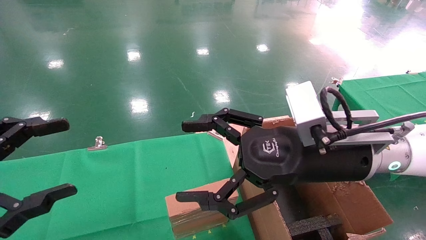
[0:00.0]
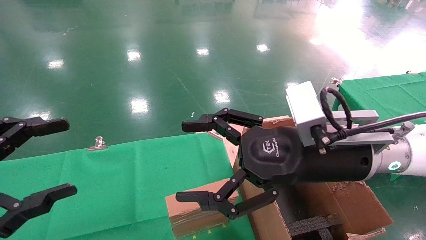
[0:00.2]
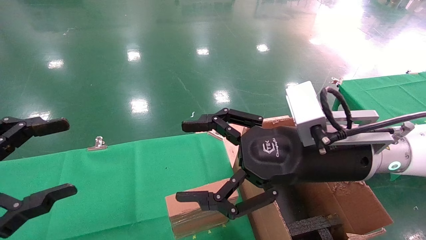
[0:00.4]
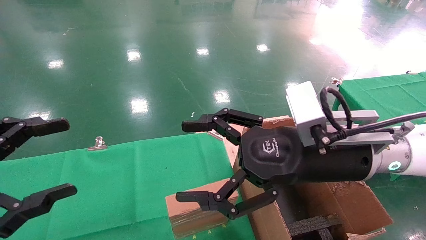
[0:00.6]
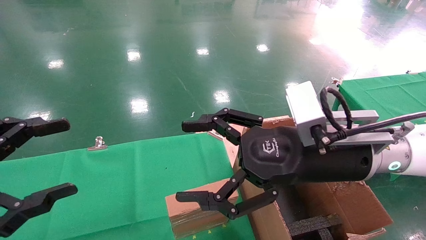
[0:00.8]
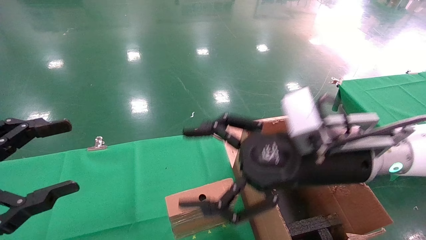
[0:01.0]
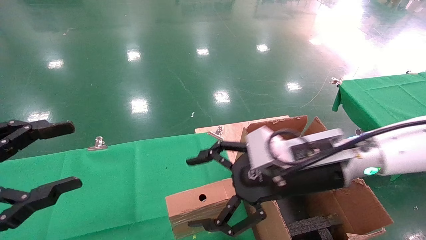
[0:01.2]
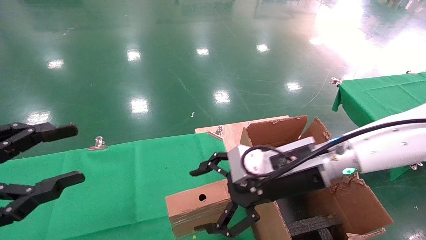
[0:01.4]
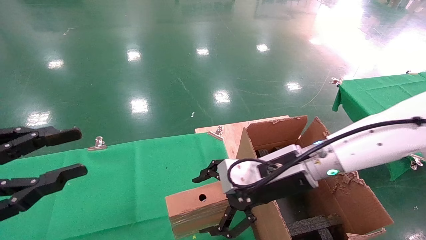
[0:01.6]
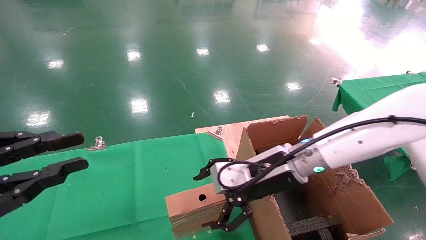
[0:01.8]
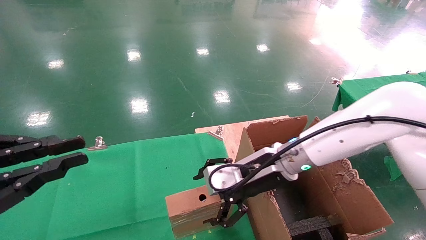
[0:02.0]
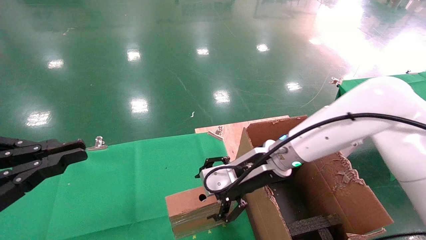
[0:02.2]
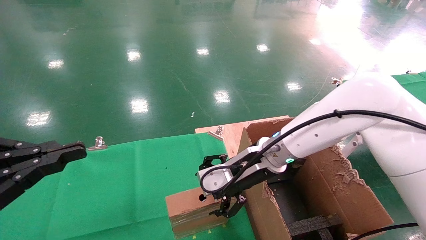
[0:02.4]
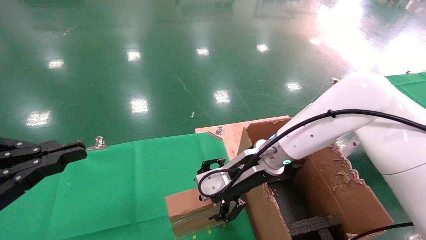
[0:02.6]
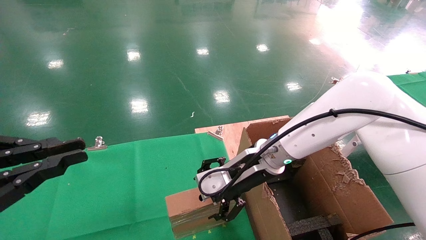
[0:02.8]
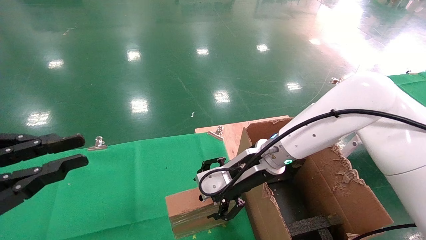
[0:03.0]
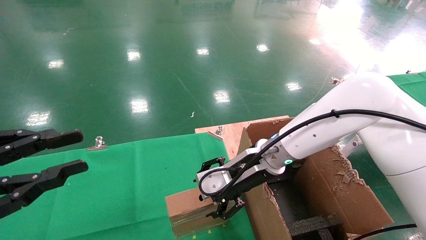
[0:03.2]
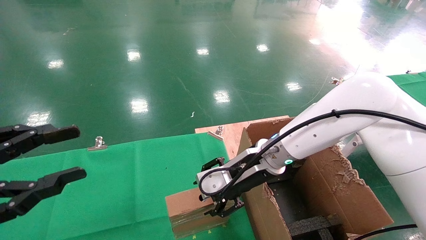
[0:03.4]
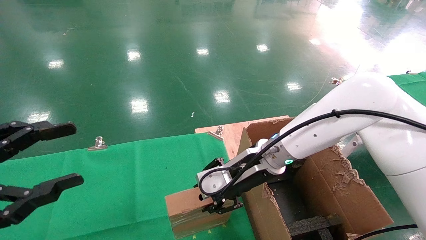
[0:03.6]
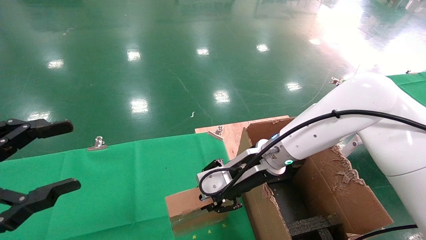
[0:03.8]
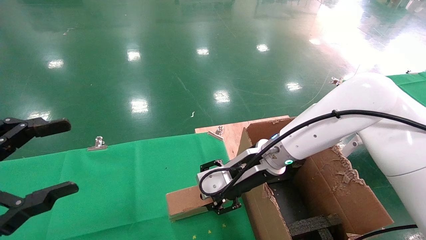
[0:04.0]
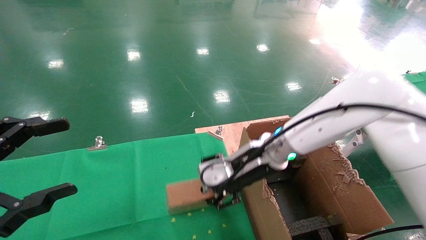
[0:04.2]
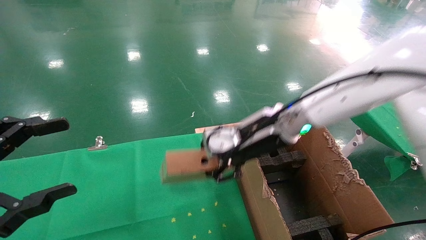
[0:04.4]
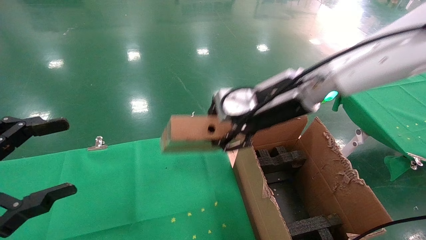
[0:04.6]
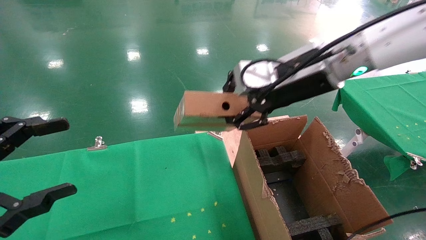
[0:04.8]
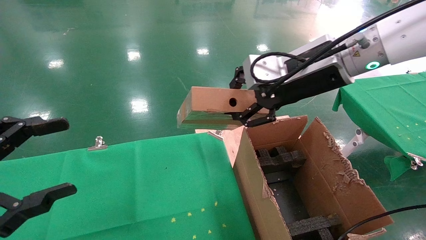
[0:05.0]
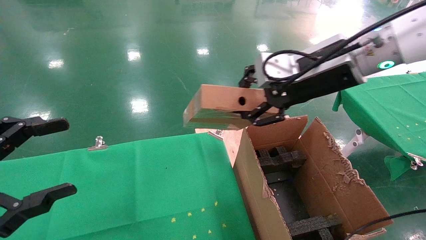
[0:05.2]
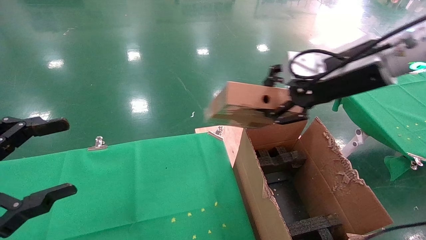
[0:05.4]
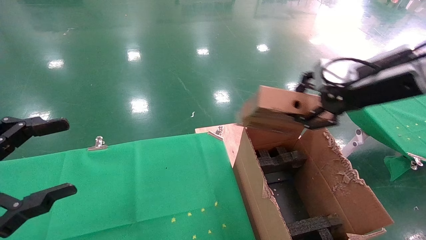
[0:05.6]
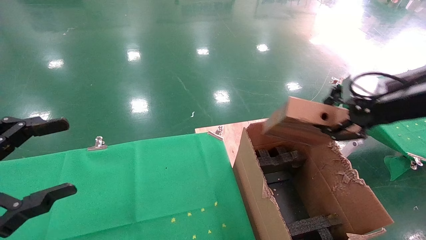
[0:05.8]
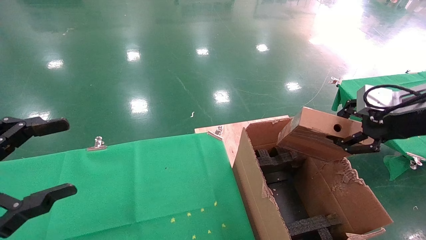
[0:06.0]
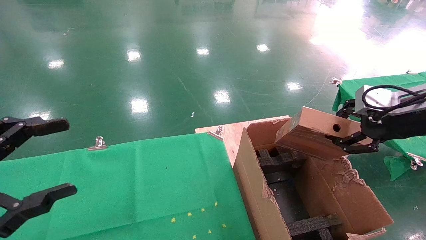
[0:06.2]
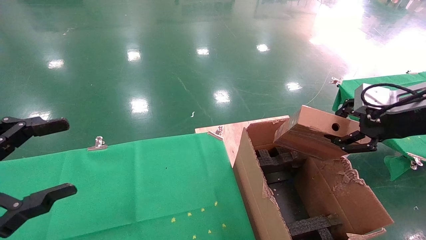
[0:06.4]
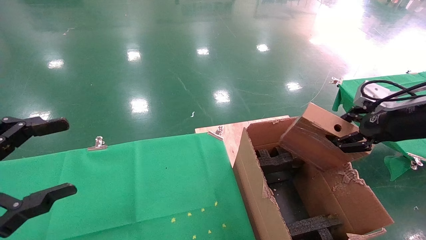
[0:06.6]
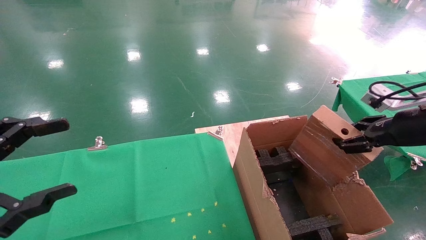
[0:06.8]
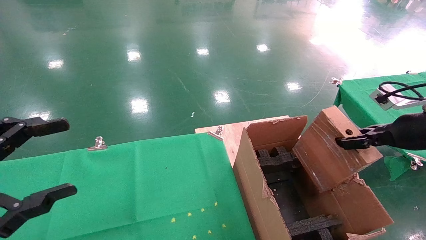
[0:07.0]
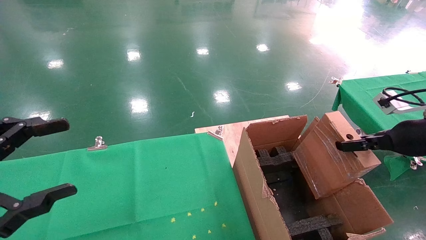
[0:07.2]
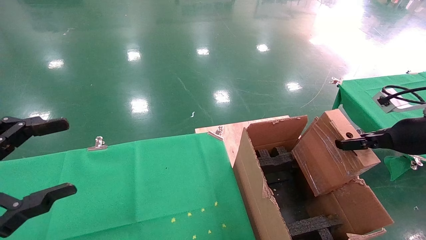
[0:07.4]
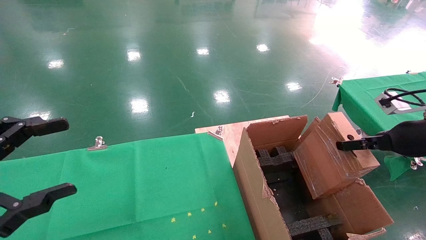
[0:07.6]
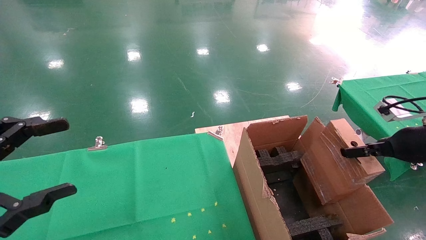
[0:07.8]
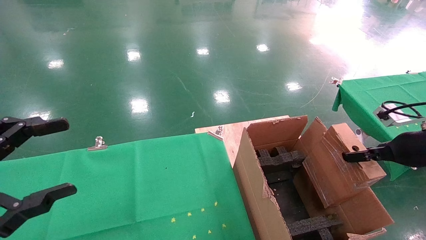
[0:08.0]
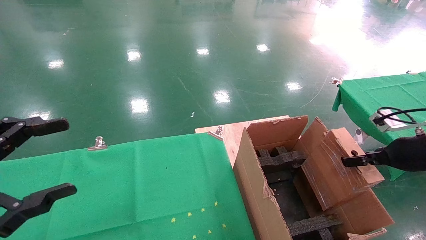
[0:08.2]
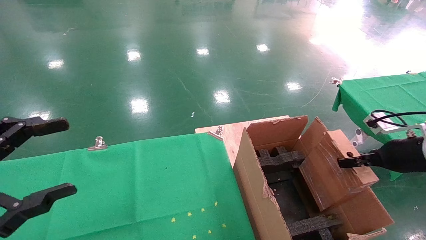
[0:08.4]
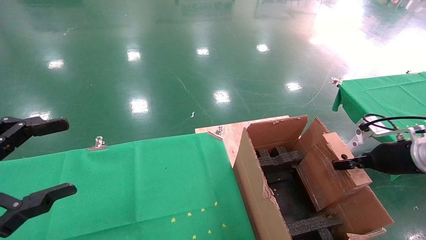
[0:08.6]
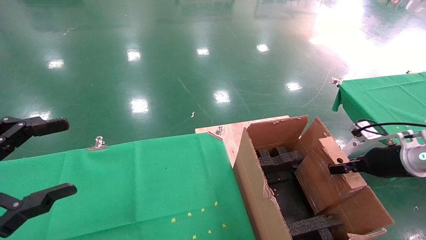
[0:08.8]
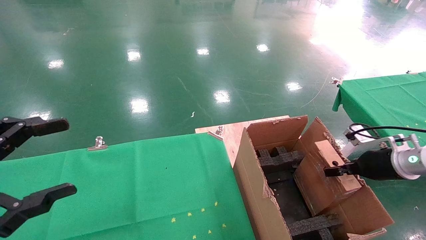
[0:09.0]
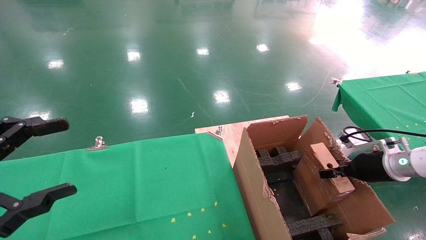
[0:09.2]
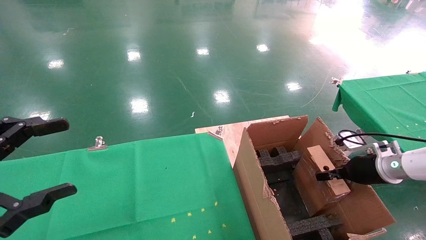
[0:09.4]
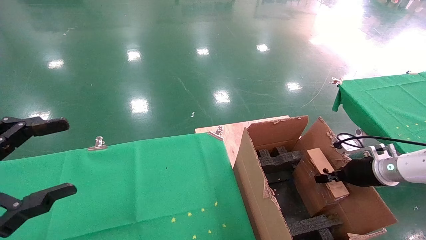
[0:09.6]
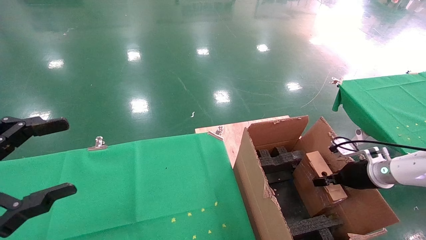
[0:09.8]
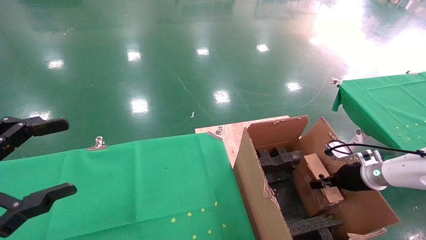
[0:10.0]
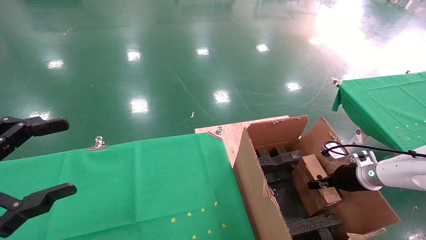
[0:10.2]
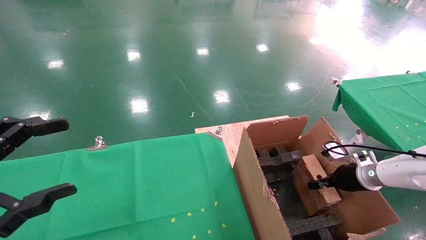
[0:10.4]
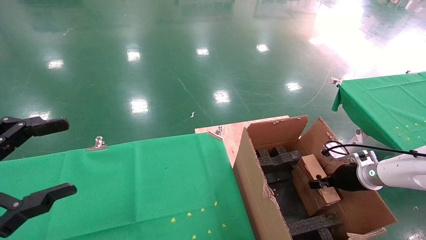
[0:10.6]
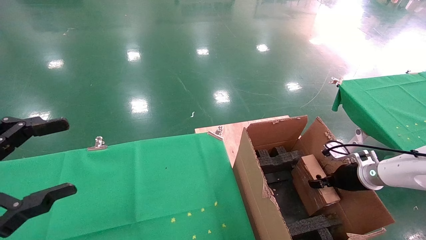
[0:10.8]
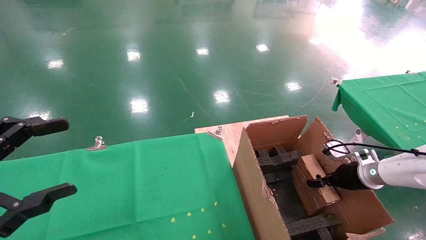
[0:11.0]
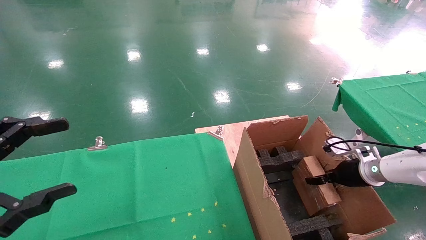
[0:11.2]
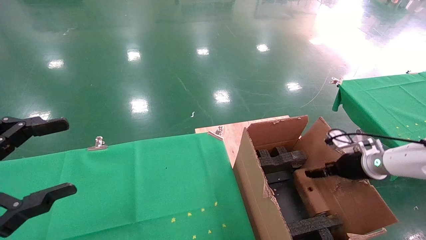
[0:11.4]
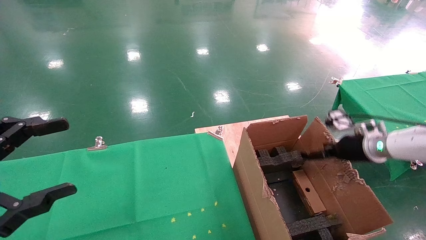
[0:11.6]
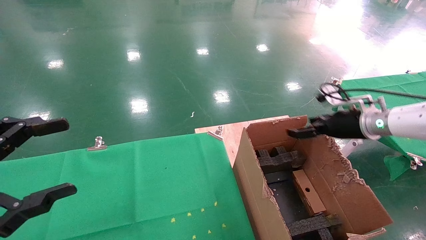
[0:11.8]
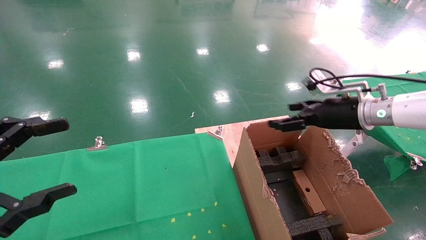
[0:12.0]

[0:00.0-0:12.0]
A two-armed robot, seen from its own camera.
Task of the whole recording: using a robotic arm to pick up a cardboard box and palace it the carton.
Step, 0:01.2 to 0:03.8: Pick up the mouse and the power cord paper box.
Step, 0:04.0 to 0:12.0: Place the mouse and the power cord paper box into the container.
0:00.0 to 0:01.6: The right gripper is displaced forward and downward by about 10 cm; the left gripper closes.
0:01.6 to 0:03.0: The right gripper shifts roughly 5 cm forward, while the left gripper closes.
0:03.0 to 0:04.4: The left gripper opens; the right gripper moves upward, some 10 cm, and closes its fingers.
0:04.4 to 0:06.0: The right gripper is displaced to the right by roughly 25 cm.
0:06.0 to 0:07.6: The right gripper moves downward and to the right, about 10 cm.
0:07.6 to 0:09.0: The right gripper moves downward and forward, approximately 10 cm.
0:09.0 to 0:10.4: The right gripper travels downward by approximately 5 cm.
0:10.4 to 0:12.0: The right gripper travels upward and to the left by about 20 cm, and opens its fingers.

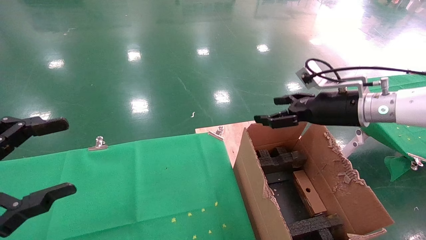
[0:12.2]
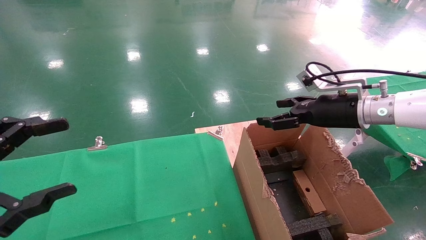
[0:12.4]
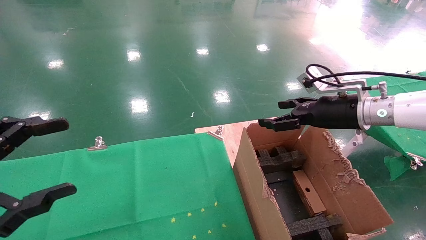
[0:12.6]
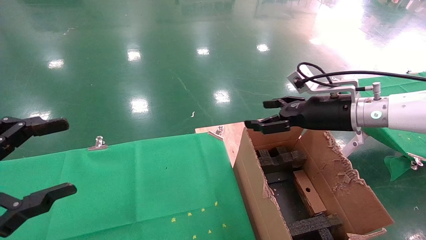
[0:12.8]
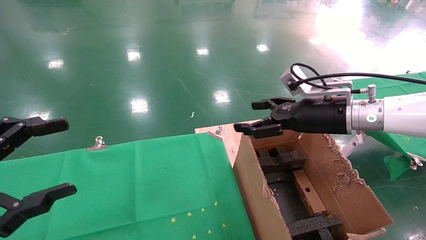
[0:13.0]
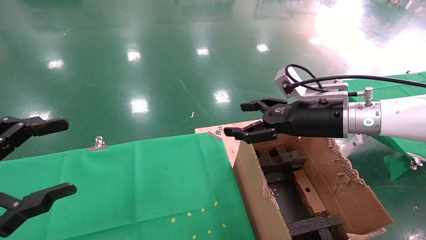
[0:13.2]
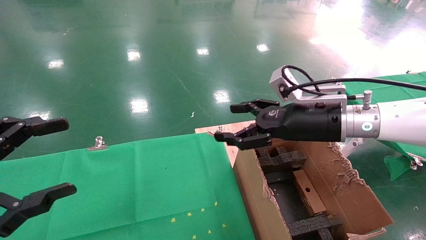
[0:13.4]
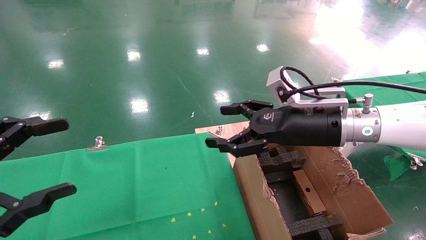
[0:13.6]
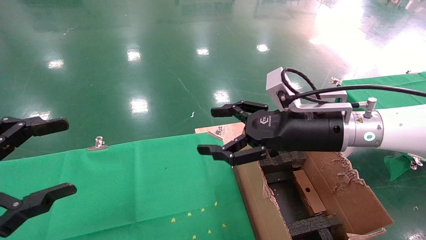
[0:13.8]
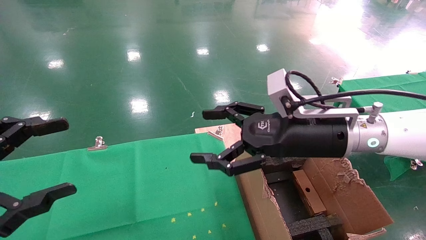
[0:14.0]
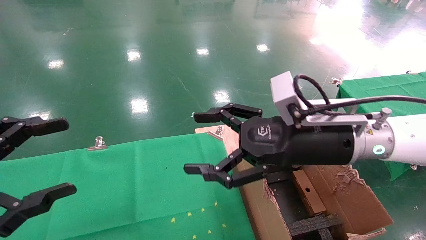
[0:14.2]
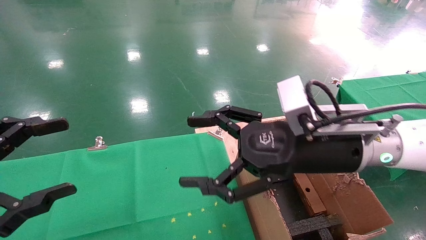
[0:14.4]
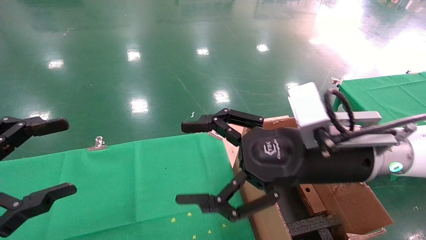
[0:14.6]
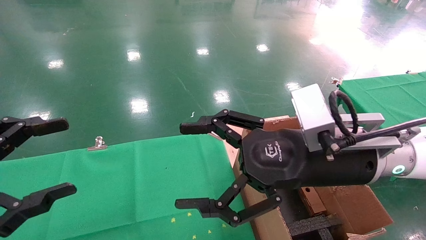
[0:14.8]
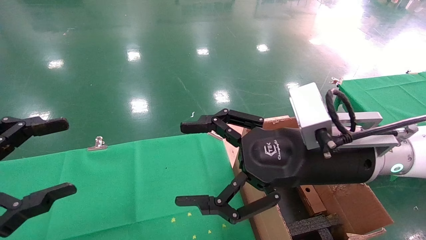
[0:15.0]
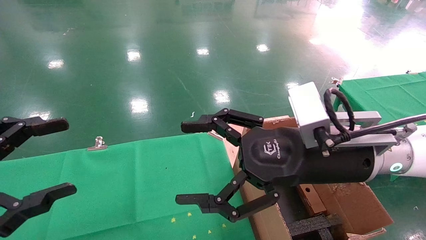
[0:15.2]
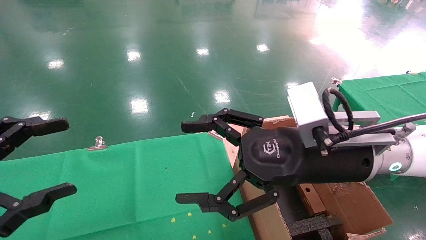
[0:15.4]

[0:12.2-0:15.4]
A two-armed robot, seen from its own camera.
Task of the whole recording: using a robotic arm to pick up a cardboard box and palace it the carton.
0:12.2 to 0:13.8: The right gripper heads to the left and backward, covering approximately 15 cm.
0:13.8 to 0:15.4: The right gripper moves backward, approximately 5 cm.

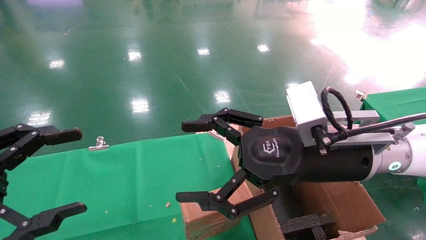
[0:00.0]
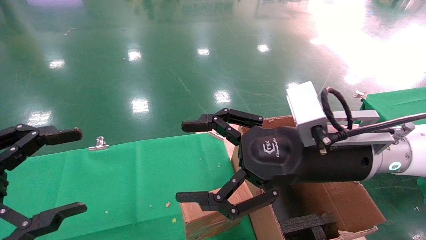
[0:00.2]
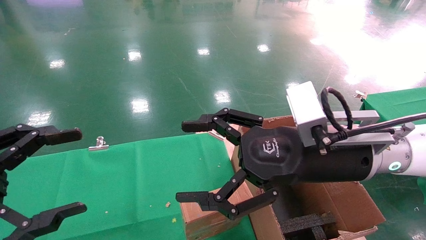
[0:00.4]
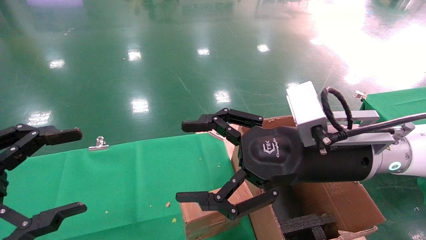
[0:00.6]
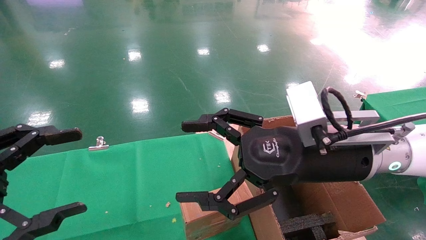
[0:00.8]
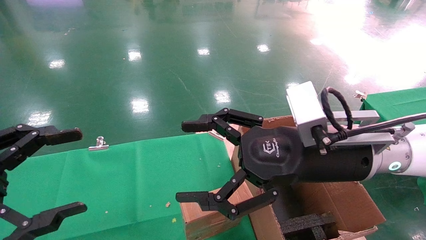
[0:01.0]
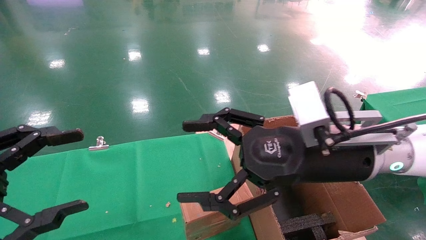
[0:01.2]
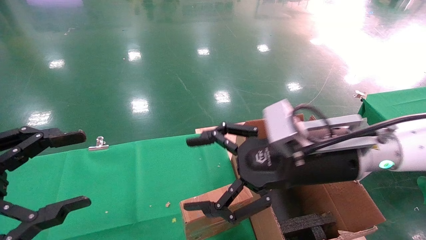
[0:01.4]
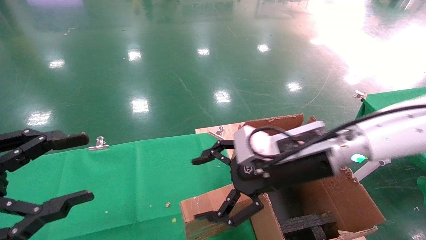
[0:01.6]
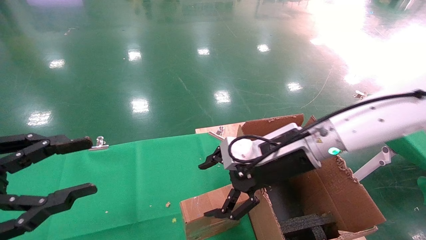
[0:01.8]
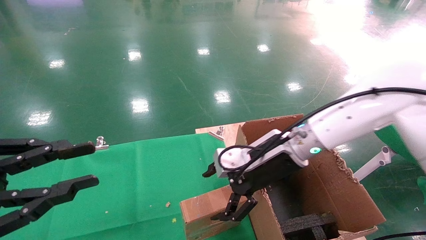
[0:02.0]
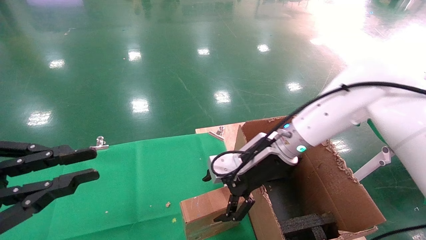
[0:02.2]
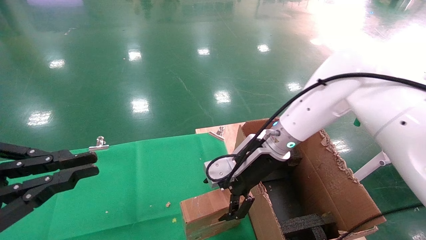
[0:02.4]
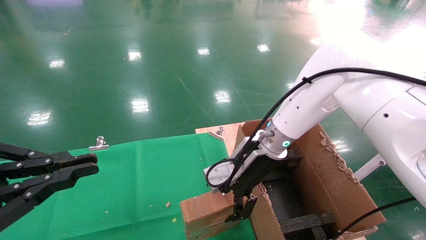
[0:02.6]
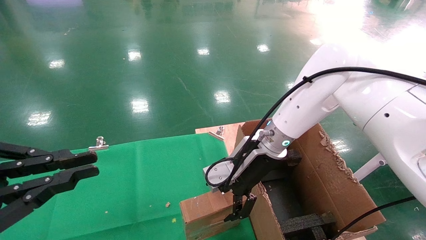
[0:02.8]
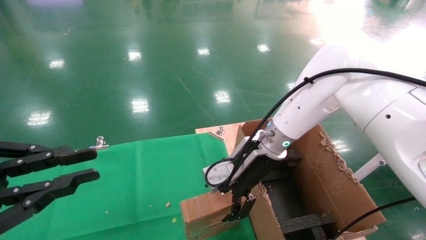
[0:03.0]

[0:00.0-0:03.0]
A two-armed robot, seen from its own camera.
Task of the whole recording: using a robotic arm to pick up a cardboard box and palace it the carton.
0:00.0 to 0:01.6: The right gripper heads forward, covering roughly 5 cm.
0:01.6 to 0:03.0: The right gripper travels forward by roughly 10 cm. Meanwhile the left gripper closes up.
